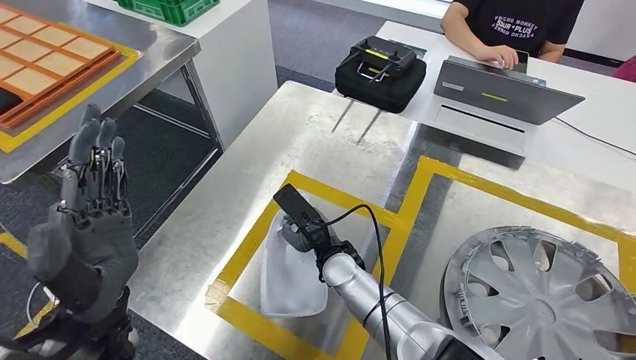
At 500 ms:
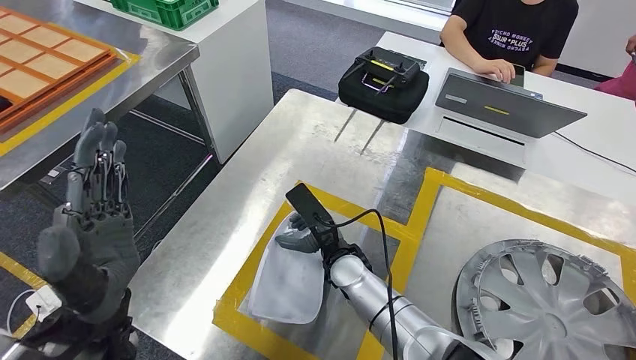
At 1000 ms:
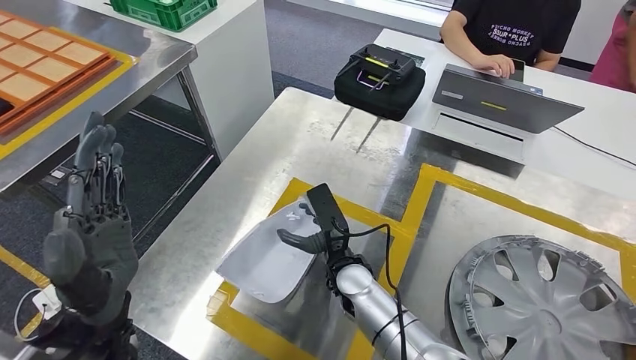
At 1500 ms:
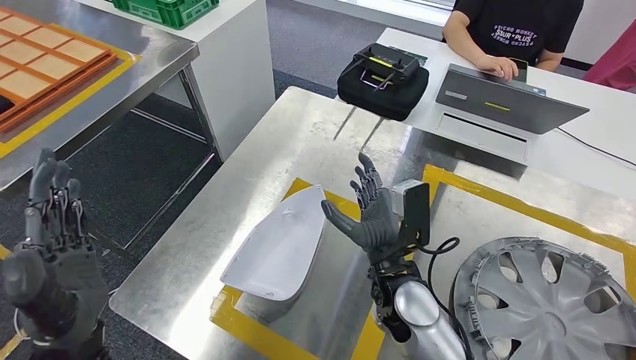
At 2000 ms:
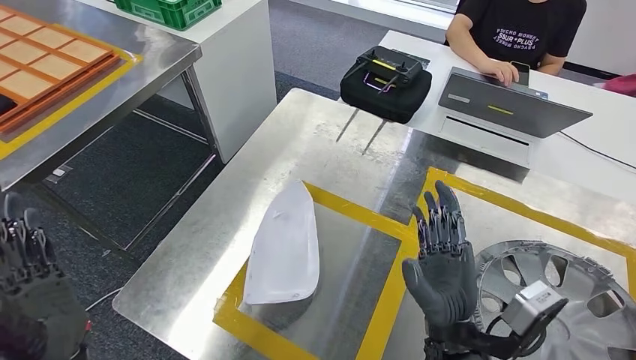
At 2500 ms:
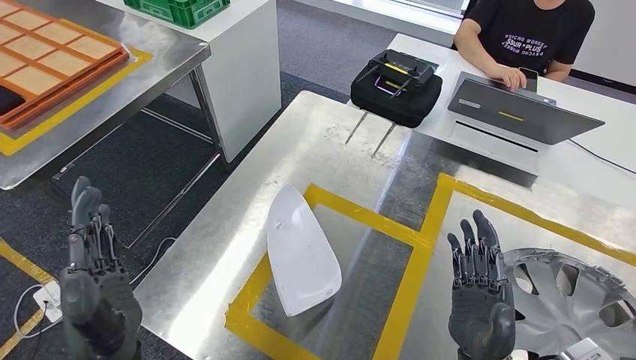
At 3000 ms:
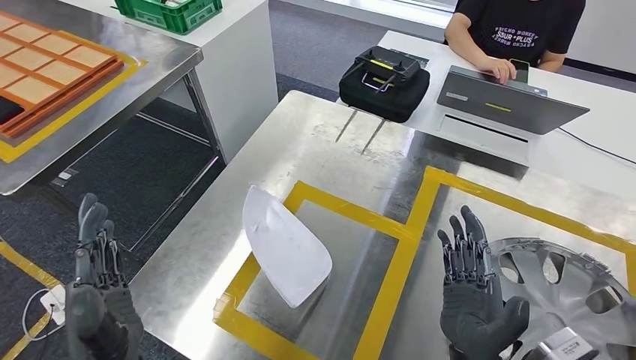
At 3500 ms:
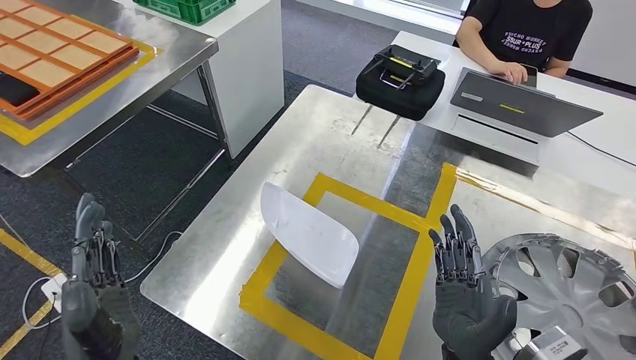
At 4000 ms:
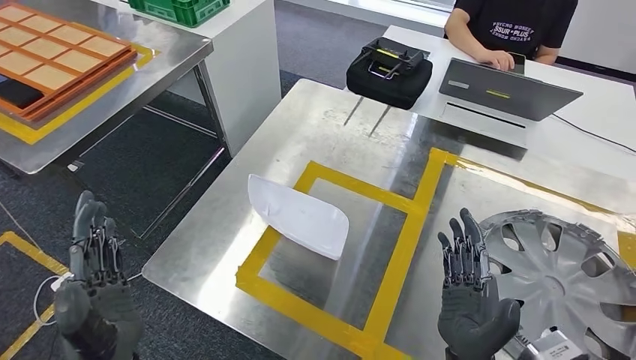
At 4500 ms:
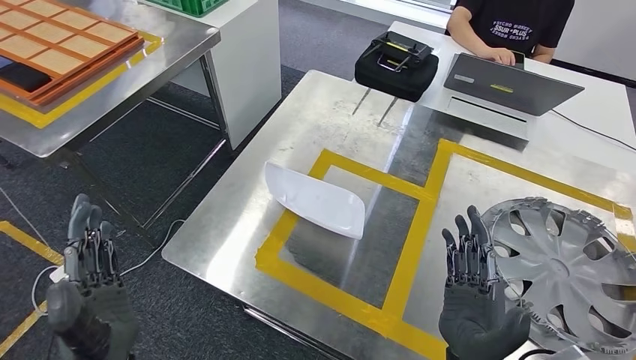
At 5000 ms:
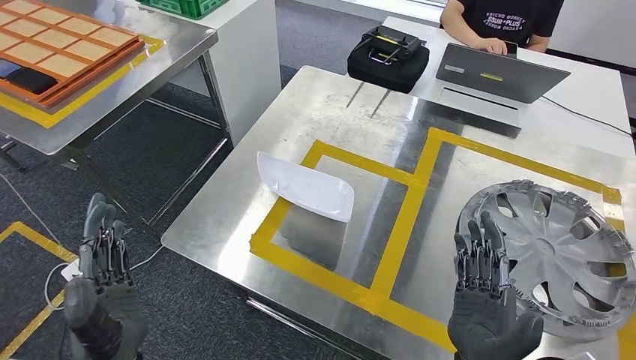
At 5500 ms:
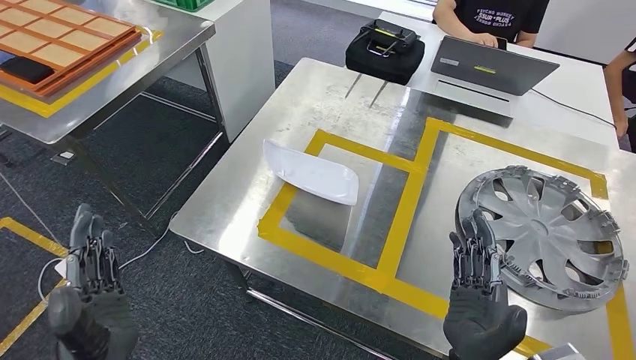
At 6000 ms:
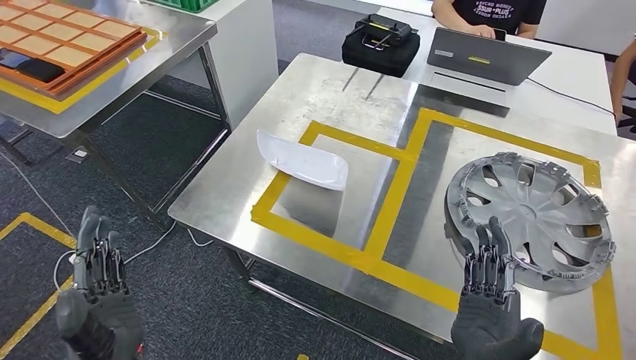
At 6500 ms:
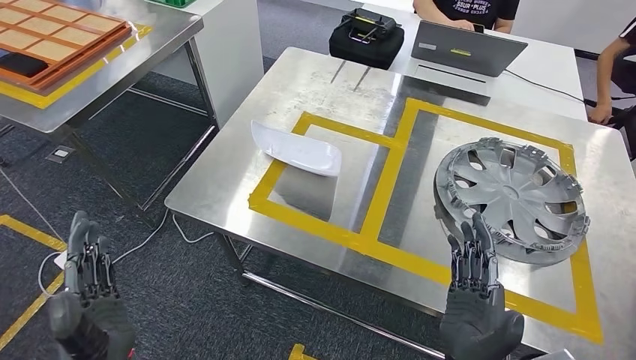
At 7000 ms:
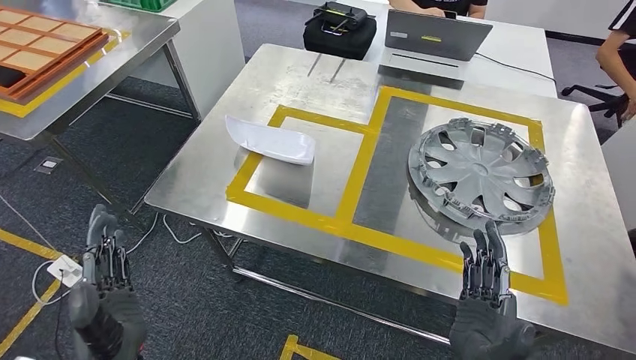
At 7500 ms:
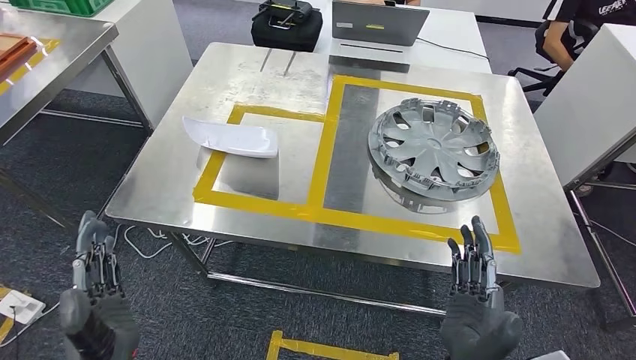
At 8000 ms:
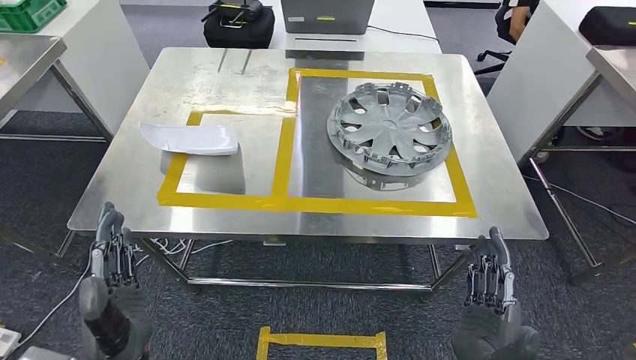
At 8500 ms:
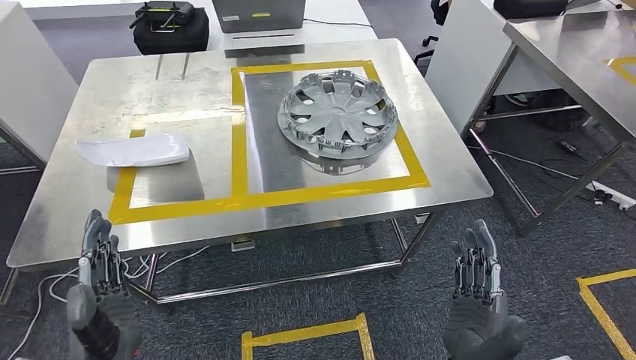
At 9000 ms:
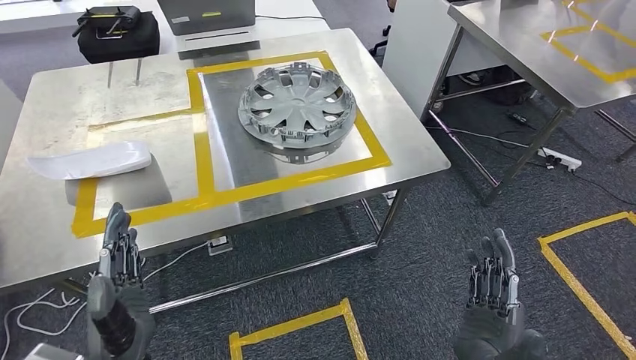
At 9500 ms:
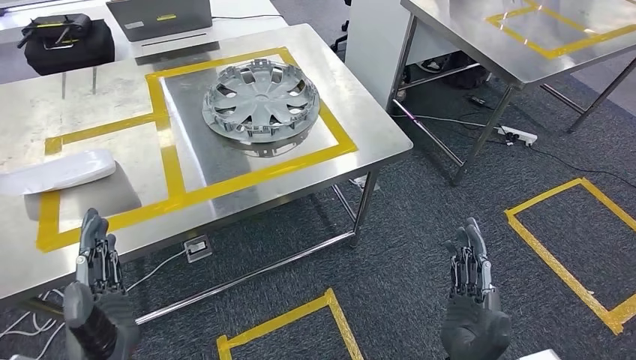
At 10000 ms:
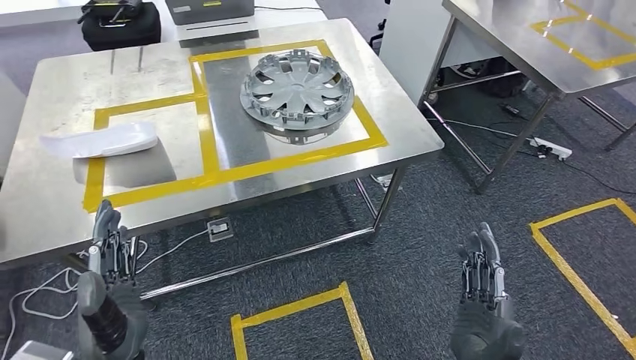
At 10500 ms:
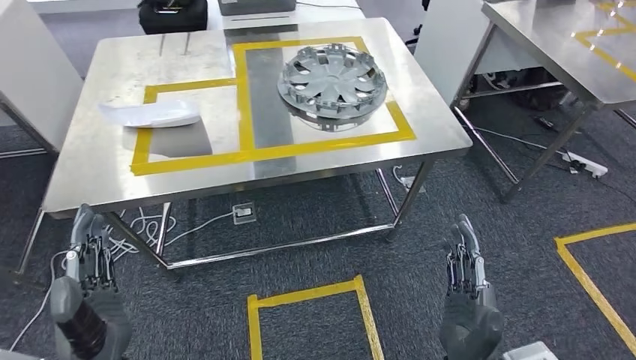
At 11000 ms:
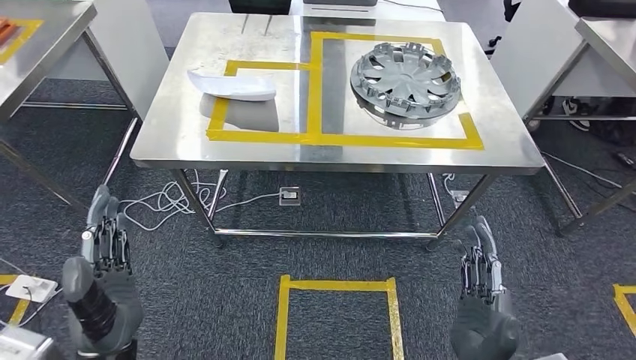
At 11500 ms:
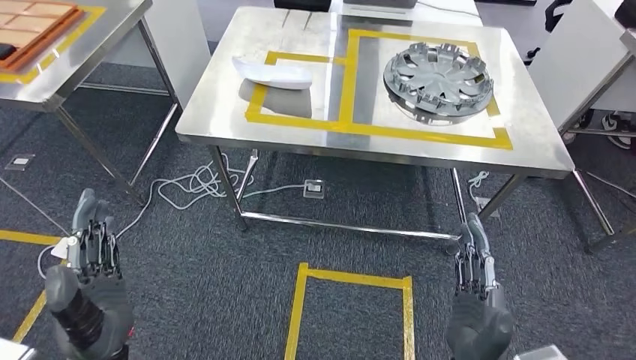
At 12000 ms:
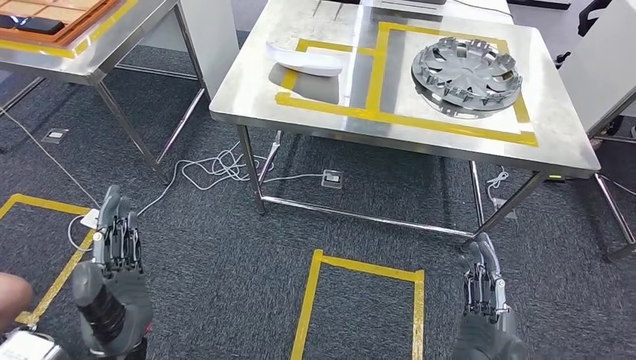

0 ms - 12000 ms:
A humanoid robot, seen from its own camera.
Step, 0 ms - 3500 ms: Insert the small component into the corresponding slot on the workbench.

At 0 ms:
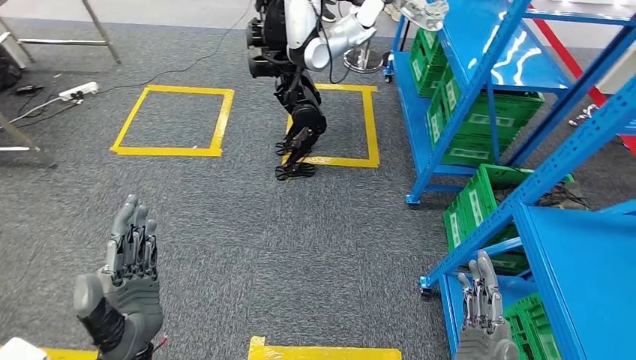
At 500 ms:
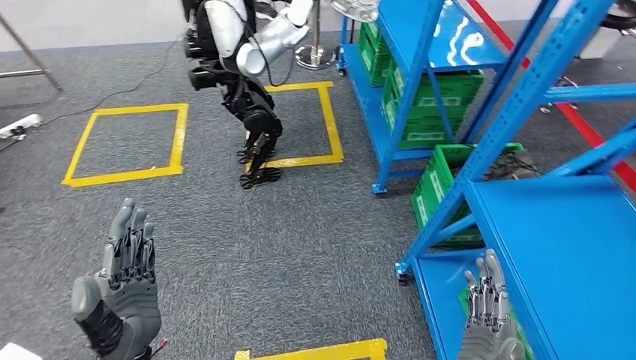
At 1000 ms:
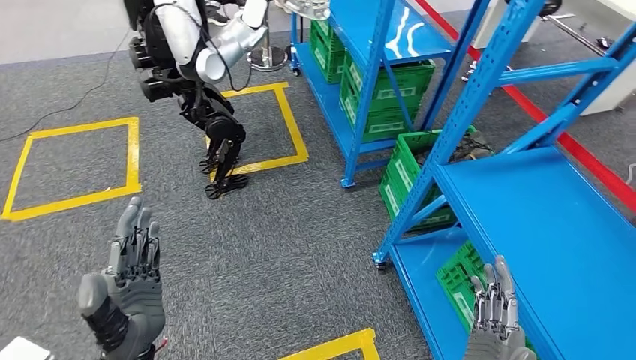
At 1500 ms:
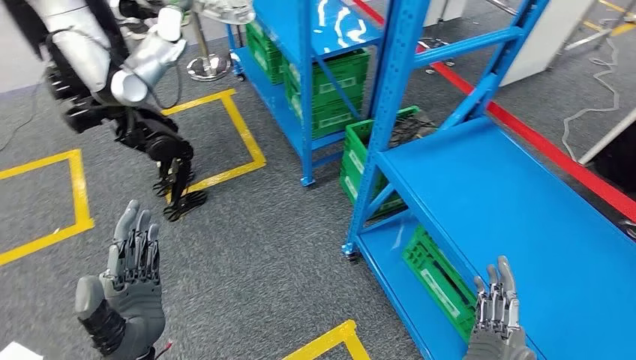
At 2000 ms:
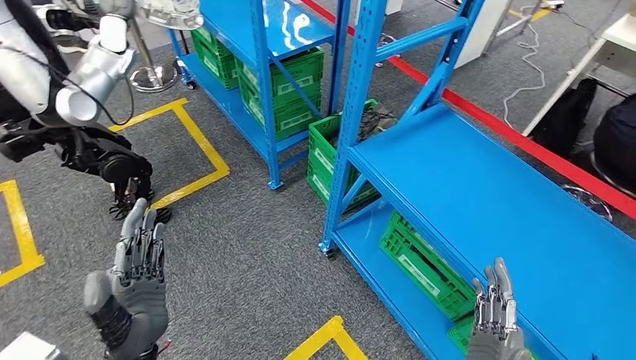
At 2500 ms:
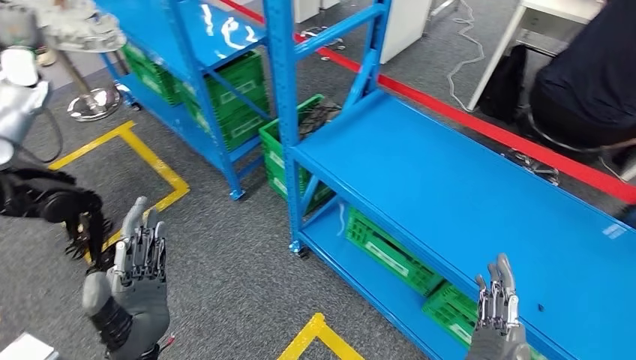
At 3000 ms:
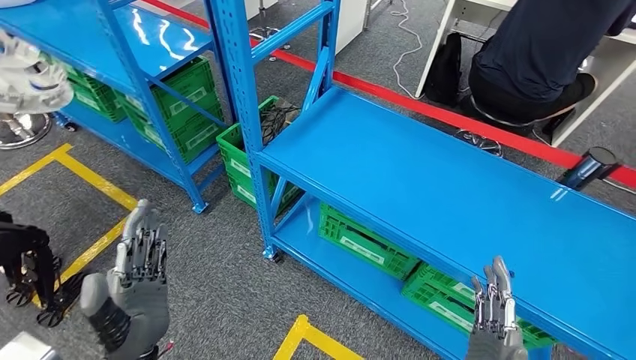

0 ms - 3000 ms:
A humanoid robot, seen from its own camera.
Step, 0 ms - 3000 ms: Move to the initial position of the workbench.
